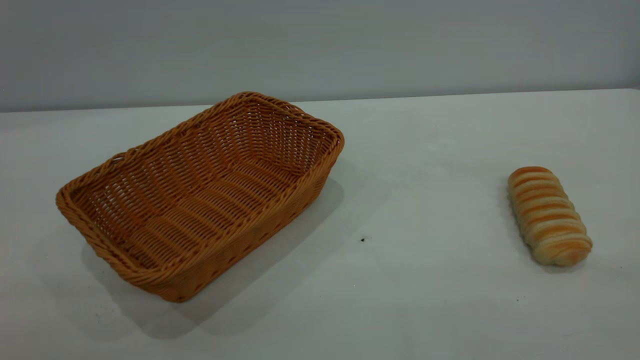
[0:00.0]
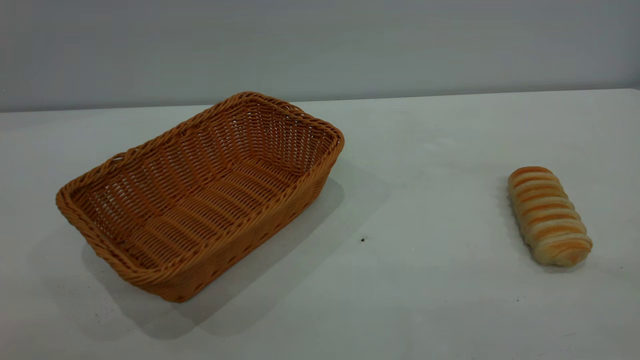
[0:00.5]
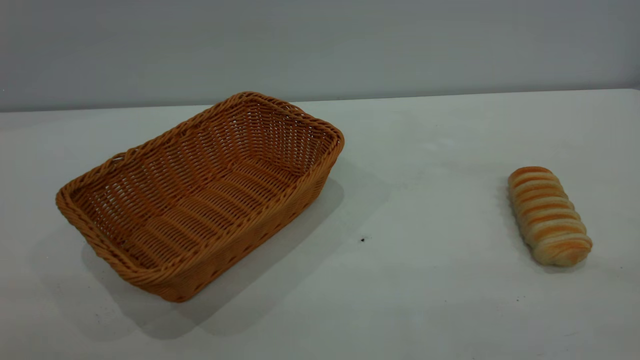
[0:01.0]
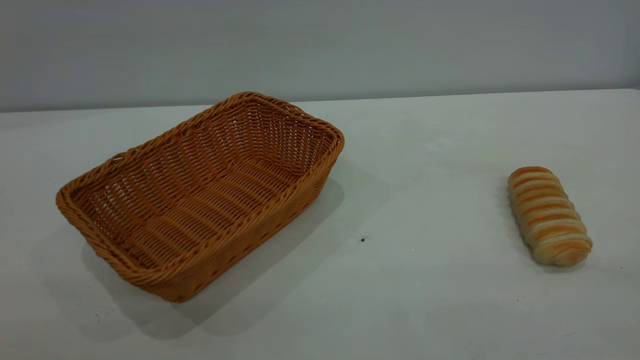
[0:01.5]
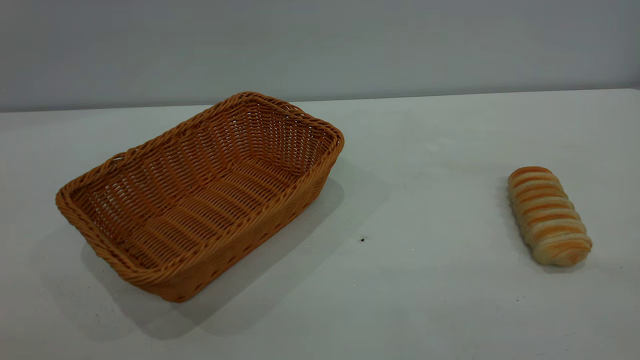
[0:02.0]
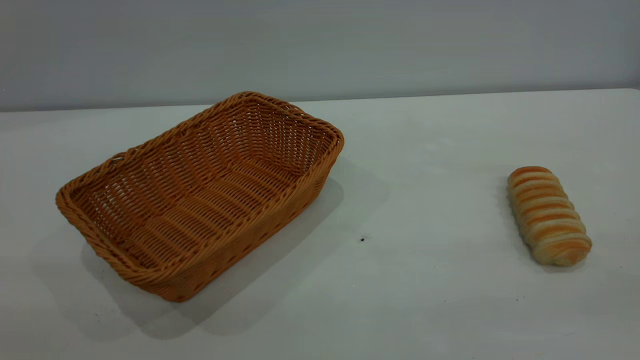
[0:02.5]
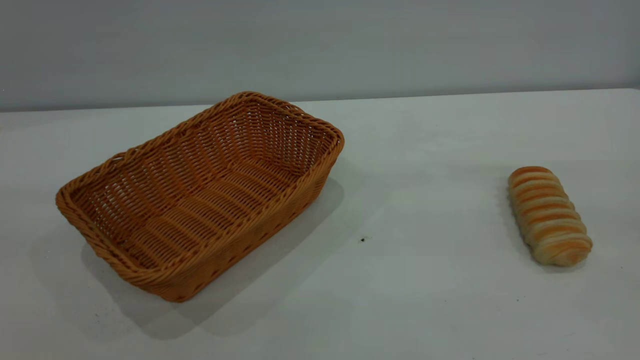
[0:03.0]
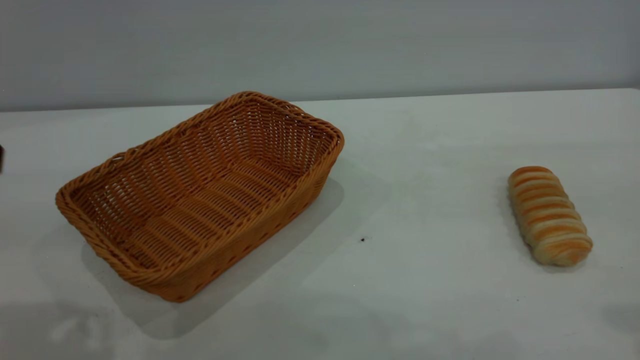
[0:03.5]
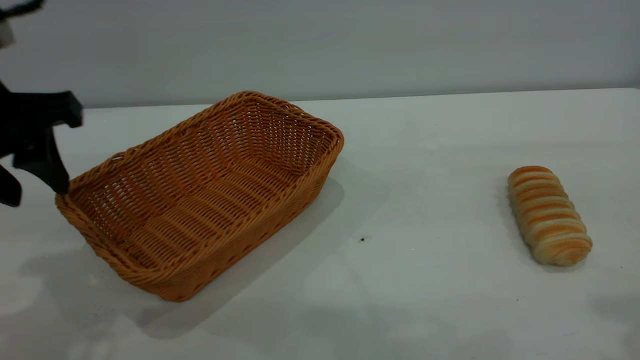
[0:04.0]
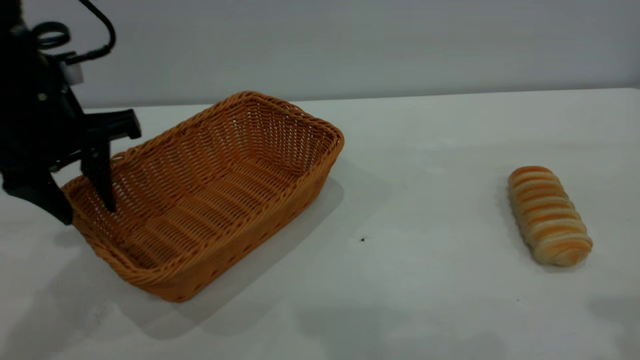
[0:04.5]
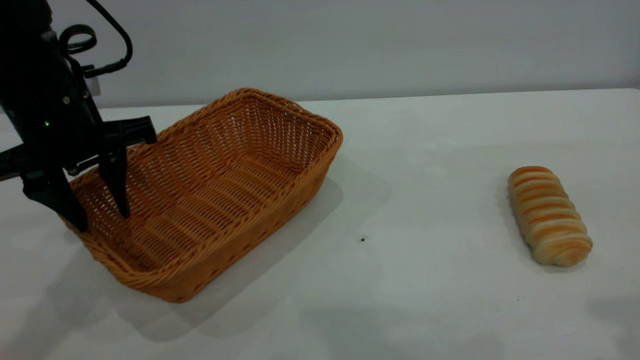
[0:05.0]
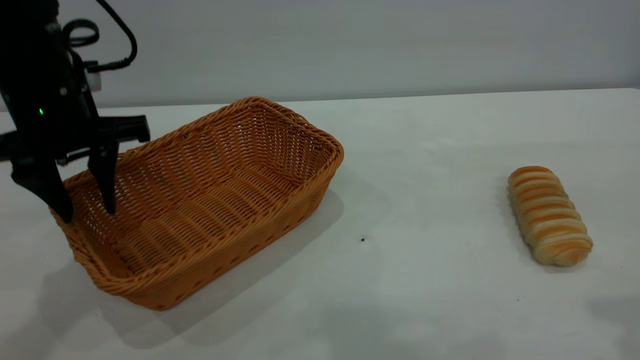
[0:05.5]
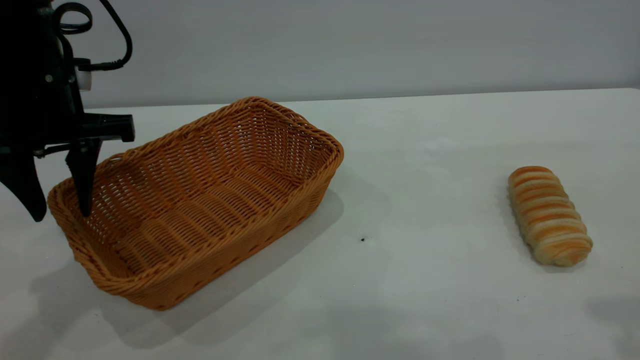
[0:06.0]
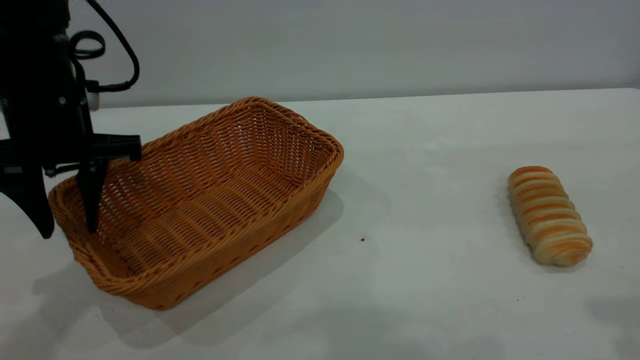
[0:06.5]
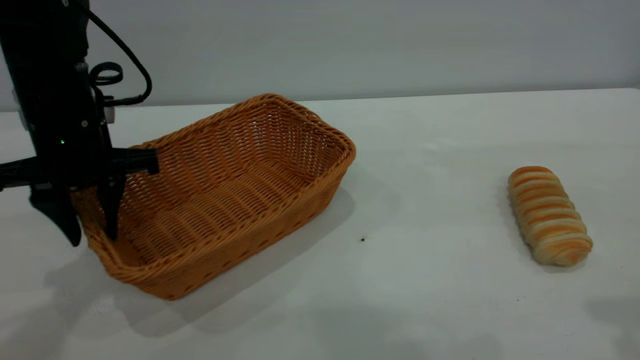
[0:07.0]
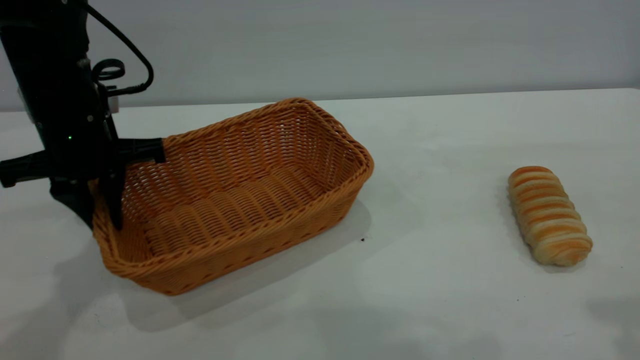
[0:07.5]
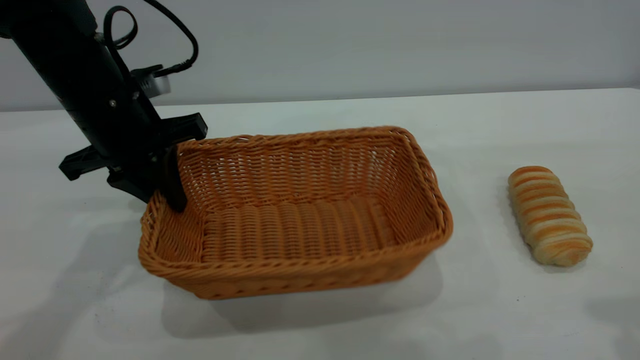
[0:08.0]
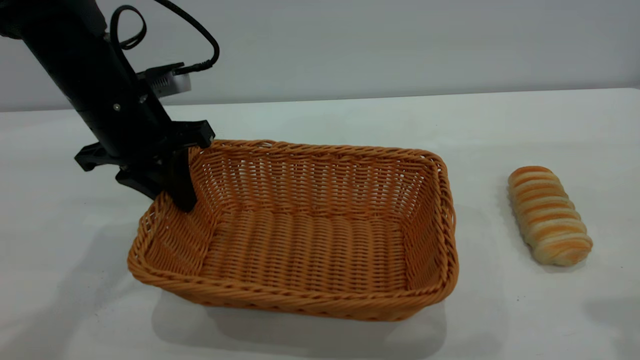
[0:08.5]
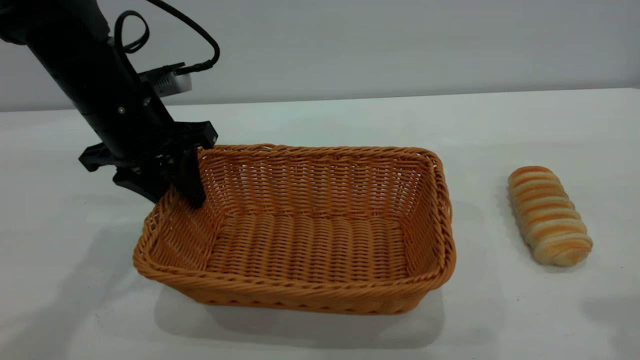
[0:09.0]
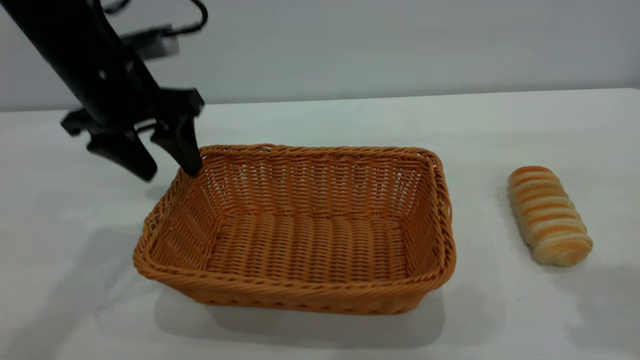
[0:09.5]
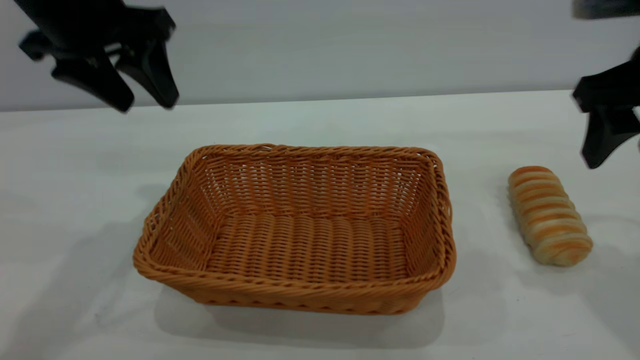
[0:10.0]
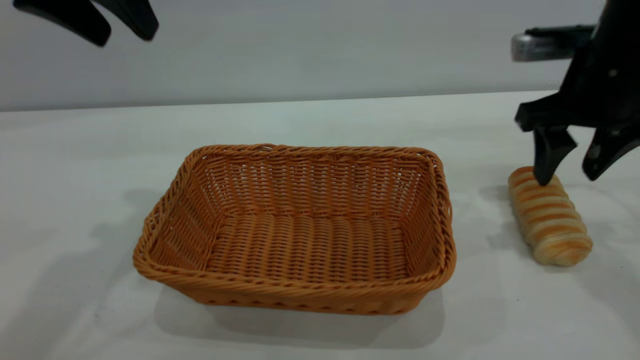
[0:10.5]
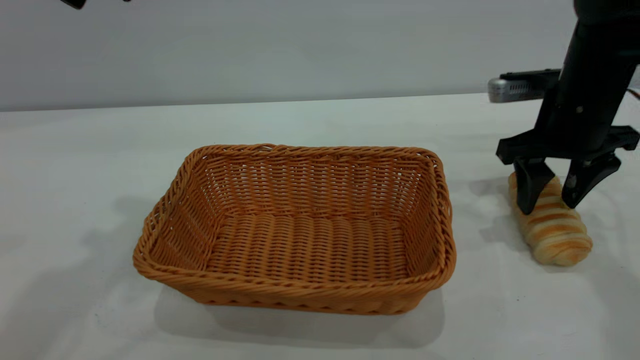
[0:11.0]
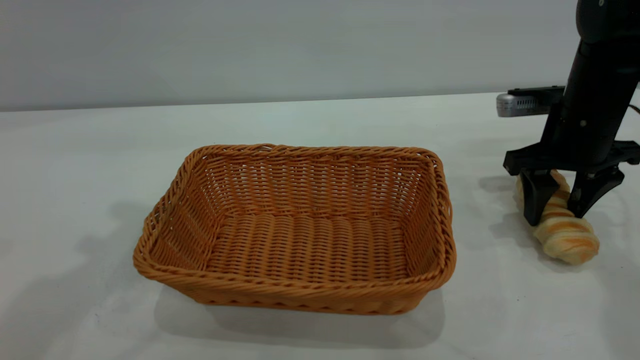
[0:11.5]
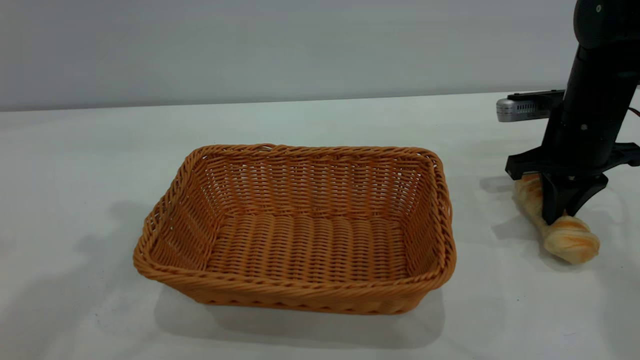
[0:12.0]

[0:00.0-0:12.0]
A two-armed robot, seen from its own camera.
Task of the whole recording: One hand grasps the yellow basket and places it in the middle of the table, while the other hand picks up the long bread and puts it into the yellow basket.
Step, 0:00.0 to 0:09.5: Move the basket to the center of view.
0:02.0 to 0:04.0: The left gripper goes about 30 cm forward.
0:04.0 to 0:06.0: The left gripper shifts roughly 10 cm forward.
0:06.0 to 0:08.0: The left gripper changes place by approximately 5 cm, and closes.
0:08.0 to 0:10.0: The right gripper moves forward and downward, approximately 15 cm, while the left gripper heads upward, covering approximately 10 cm, and opens.
0:10.0 to 0:12.0: The right gripper shifts approximately 15 cm downward and forward, and closes its fingers. Meanwhile the left gripper heads upward, covering about 10 cm.

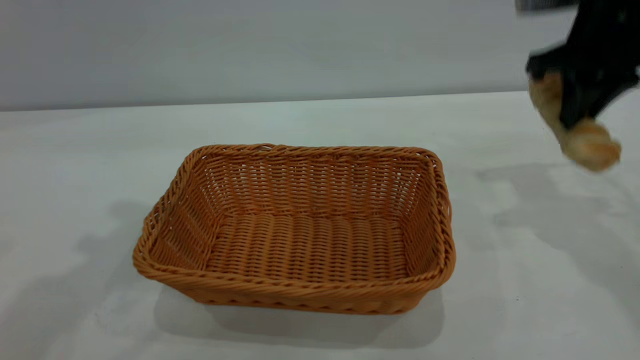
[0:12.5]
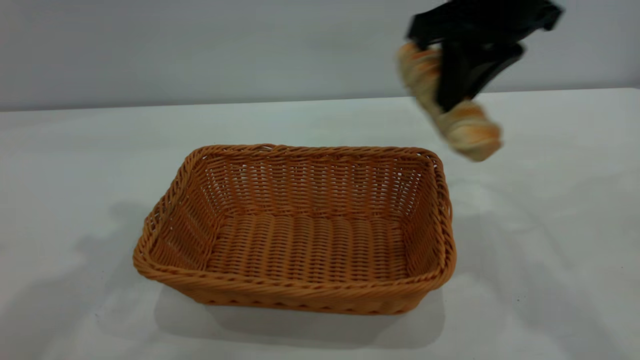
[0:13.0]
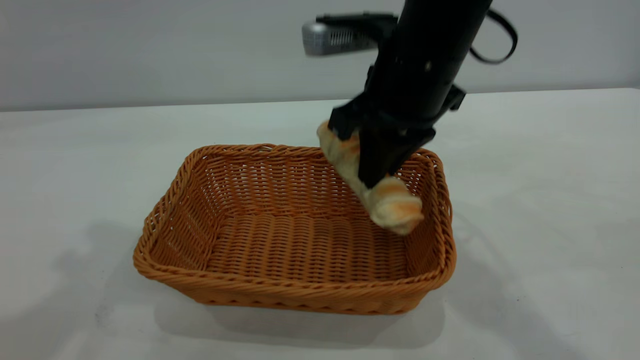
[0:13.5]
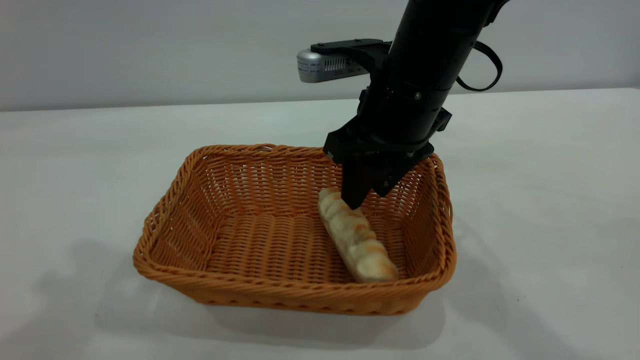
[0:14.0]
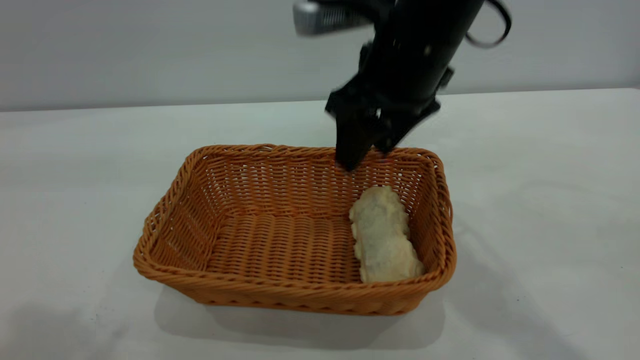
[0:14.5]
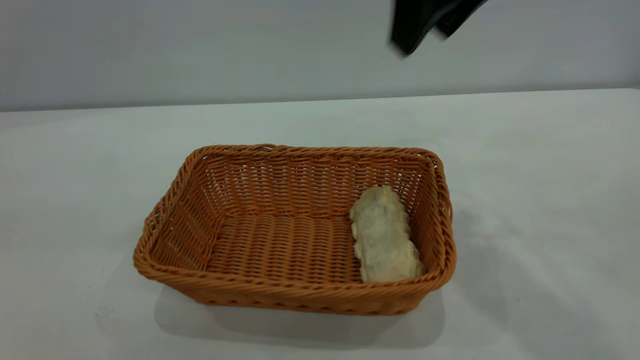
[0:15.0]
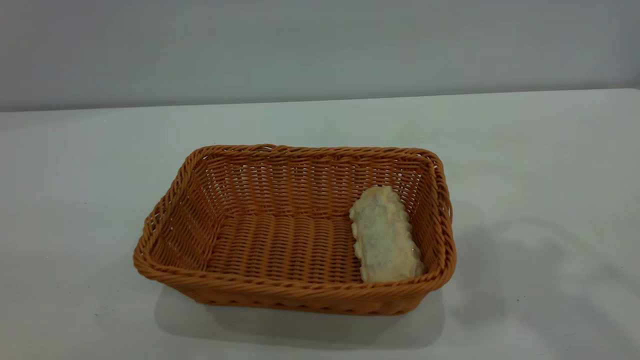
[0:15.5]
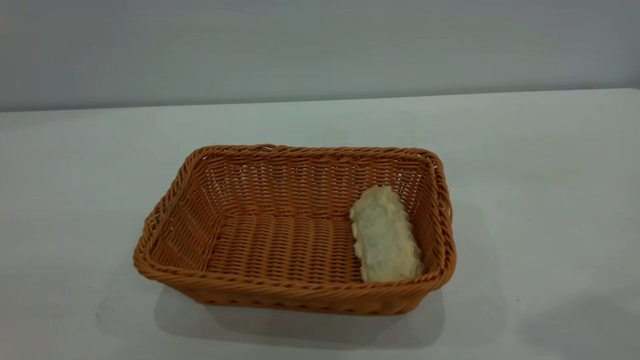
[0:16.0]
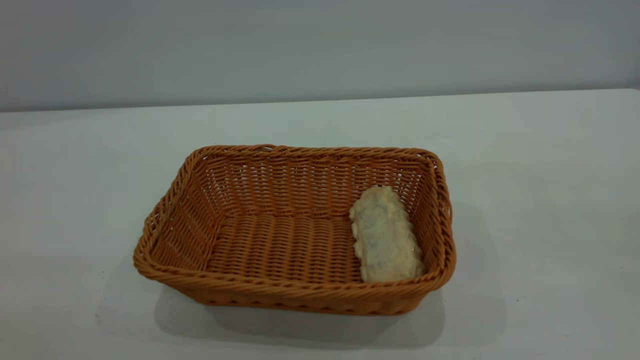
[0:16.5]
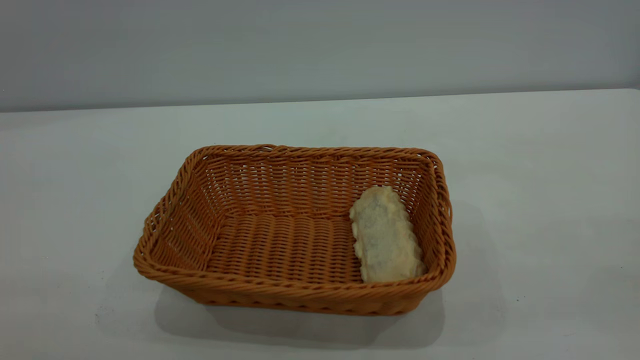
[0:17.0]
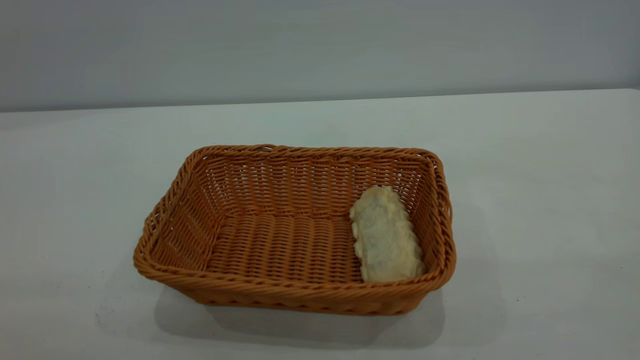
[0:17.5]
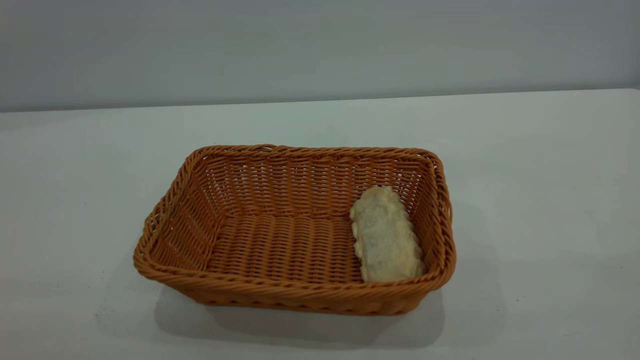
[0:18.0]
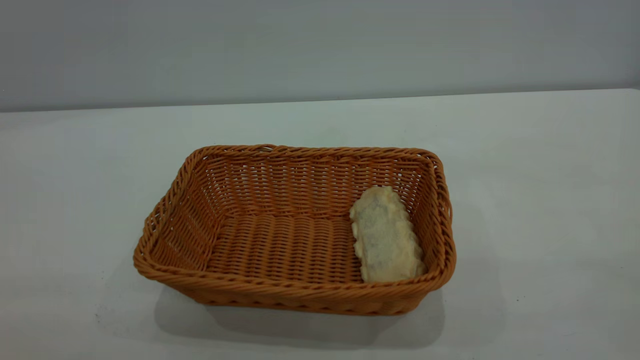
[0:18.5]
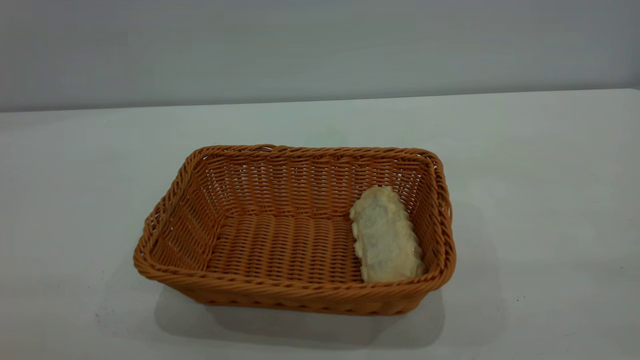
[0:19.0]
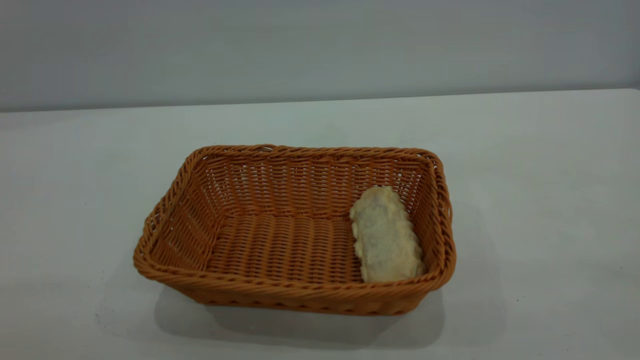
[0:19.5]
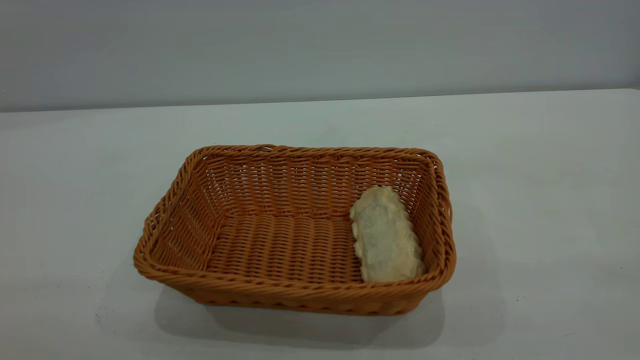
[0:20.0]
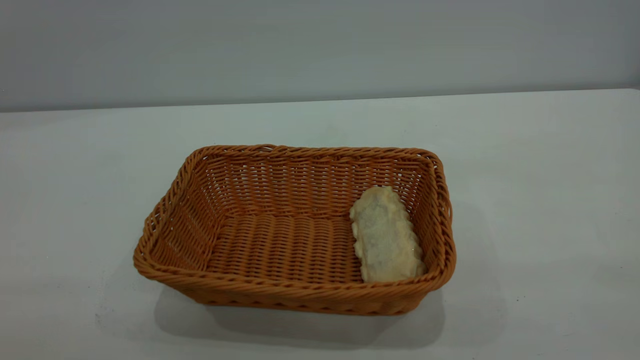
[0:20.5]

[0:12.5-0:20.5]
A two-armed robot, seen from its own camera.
Task of the whole recording: One hand grasps the yellow basket and places it in the middle of the table, while the other hand picks up the long bread and puts it into the yellow basket.
Step, 0:12.5 to 0:14.5: place the bread into the basket.
0:12.5 to 0:14.5: The left gripper travels backward and upward by approximately 15 cm, while the right gripper shifts roughly 15 cm to the left, and opens up.
0:14.5 to 0:16.5: The right gripper is displaced backward, to the right and upward by some 40 cm, while the left gripper is displaced backward and downward by approximately 20 cm.
